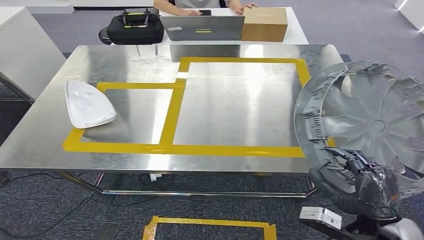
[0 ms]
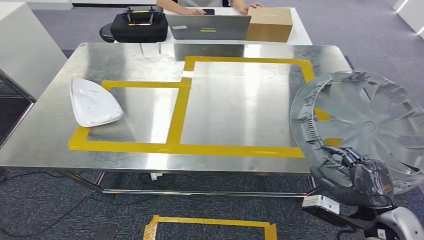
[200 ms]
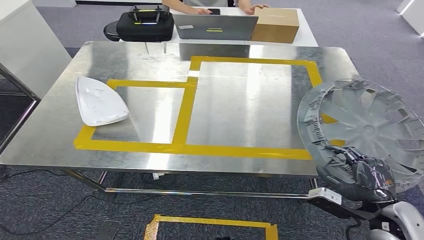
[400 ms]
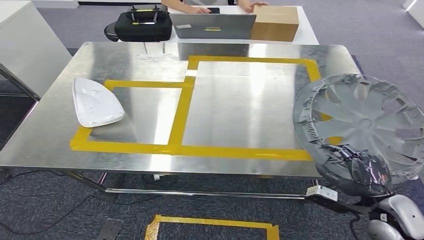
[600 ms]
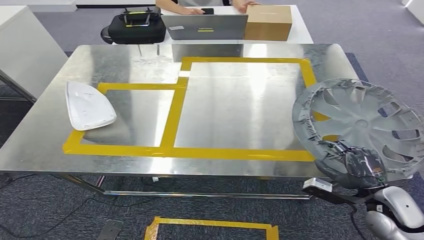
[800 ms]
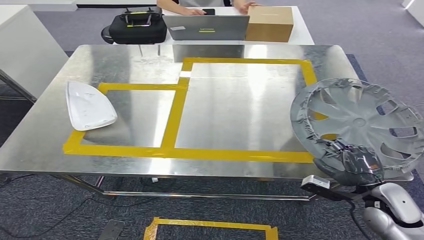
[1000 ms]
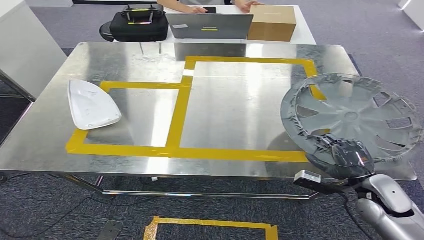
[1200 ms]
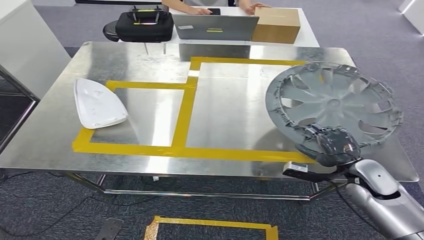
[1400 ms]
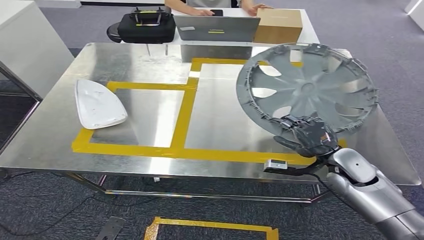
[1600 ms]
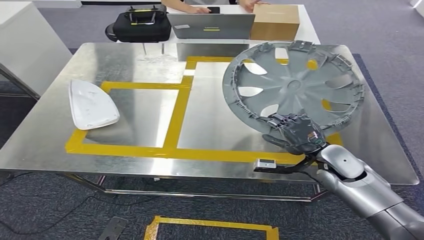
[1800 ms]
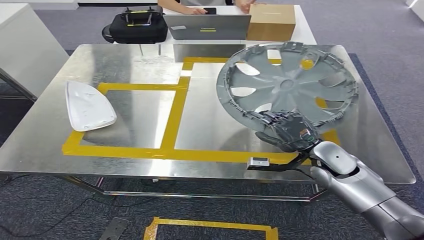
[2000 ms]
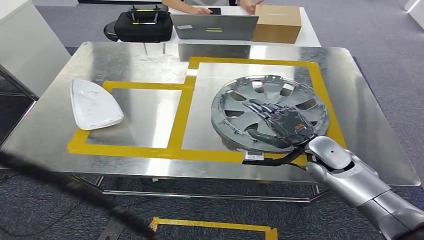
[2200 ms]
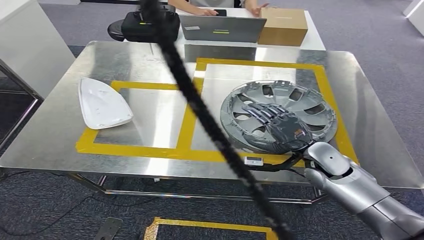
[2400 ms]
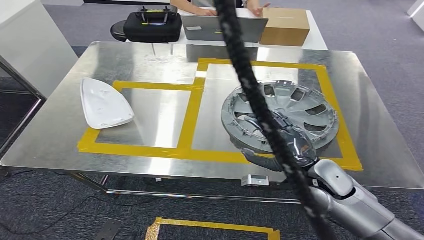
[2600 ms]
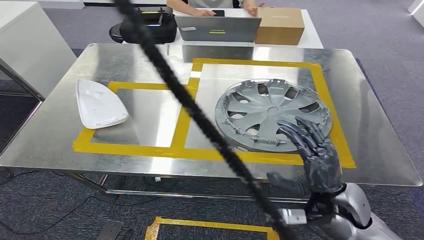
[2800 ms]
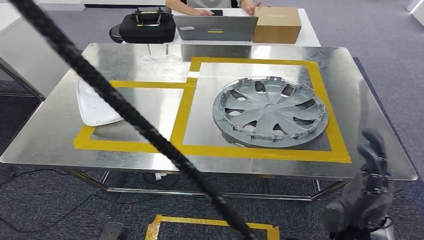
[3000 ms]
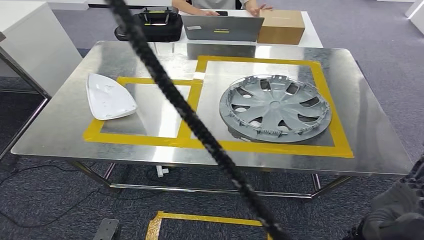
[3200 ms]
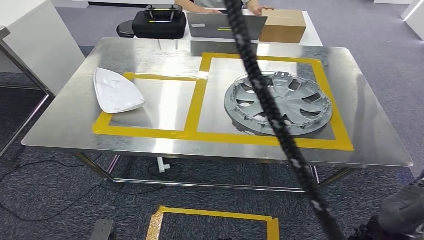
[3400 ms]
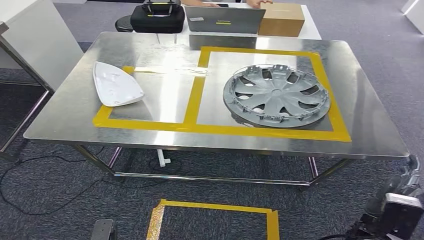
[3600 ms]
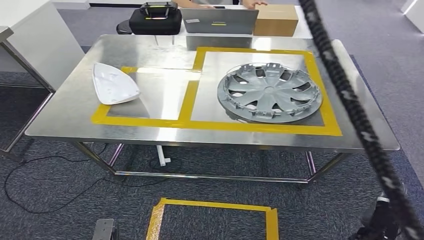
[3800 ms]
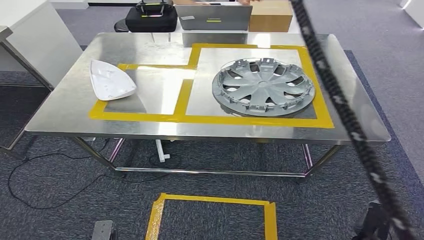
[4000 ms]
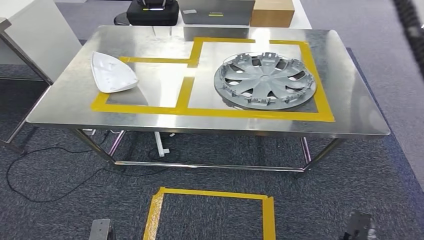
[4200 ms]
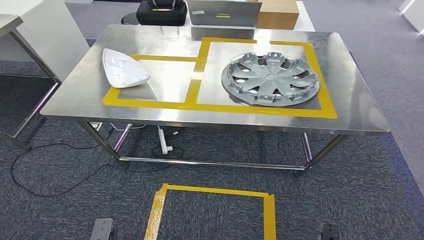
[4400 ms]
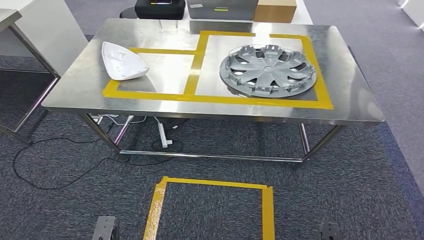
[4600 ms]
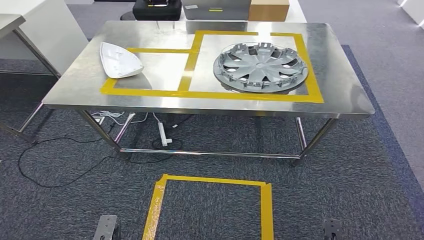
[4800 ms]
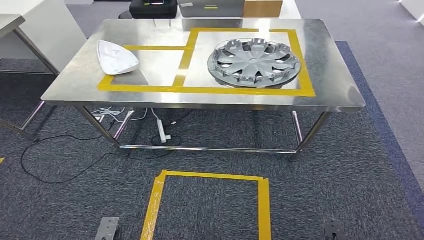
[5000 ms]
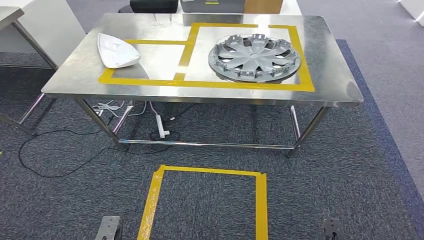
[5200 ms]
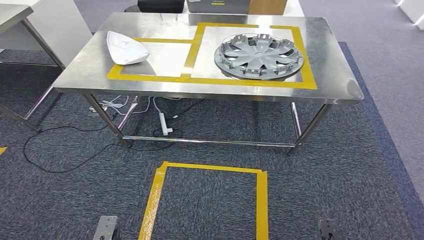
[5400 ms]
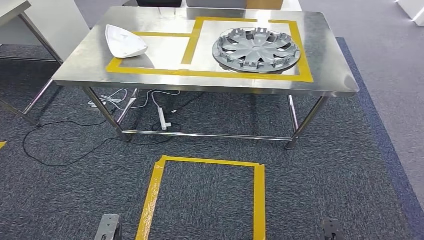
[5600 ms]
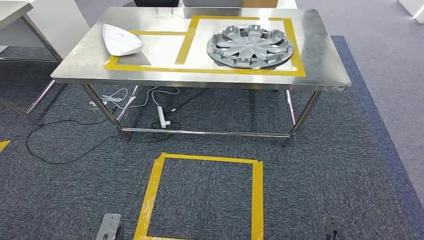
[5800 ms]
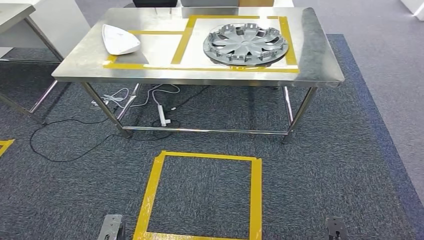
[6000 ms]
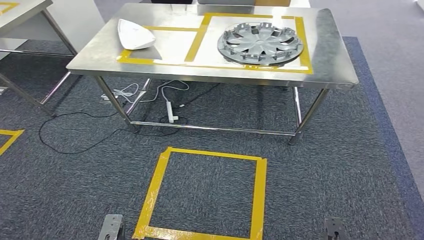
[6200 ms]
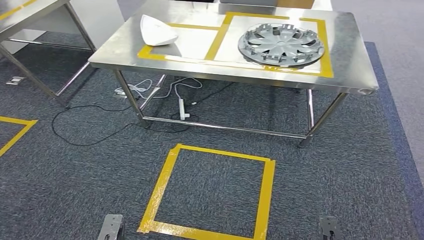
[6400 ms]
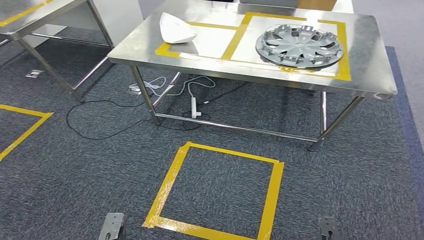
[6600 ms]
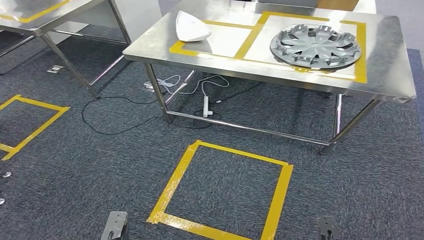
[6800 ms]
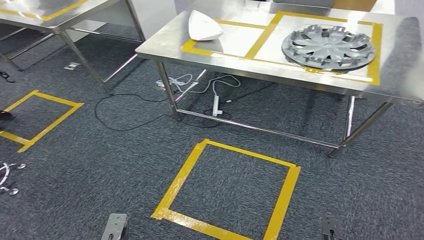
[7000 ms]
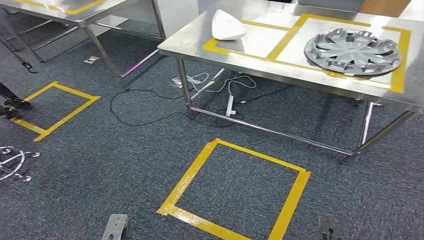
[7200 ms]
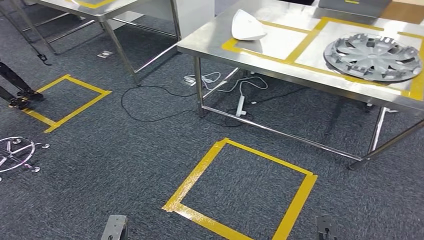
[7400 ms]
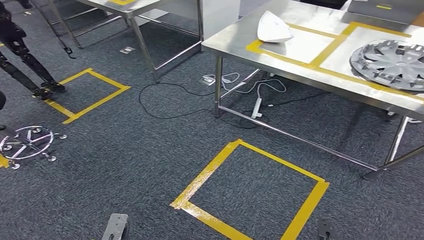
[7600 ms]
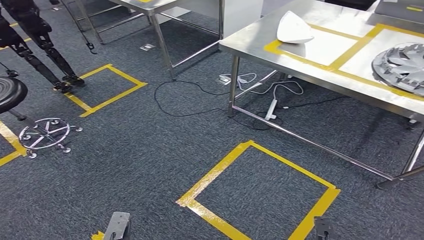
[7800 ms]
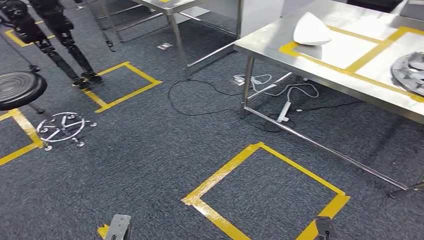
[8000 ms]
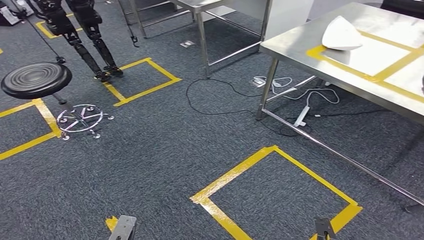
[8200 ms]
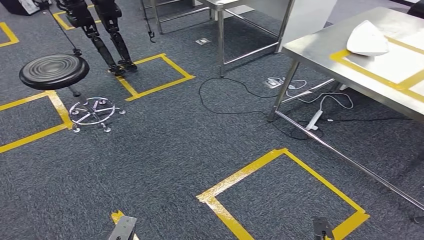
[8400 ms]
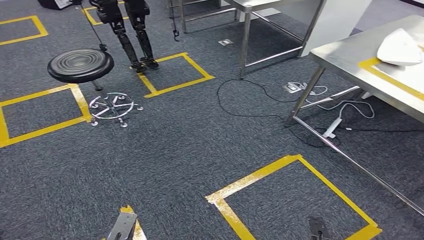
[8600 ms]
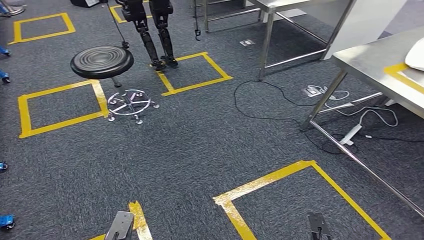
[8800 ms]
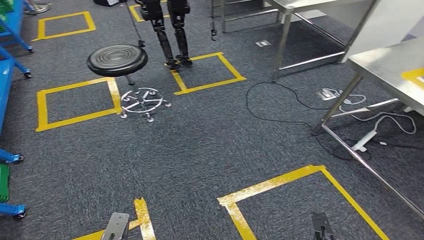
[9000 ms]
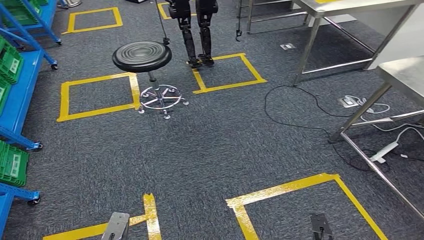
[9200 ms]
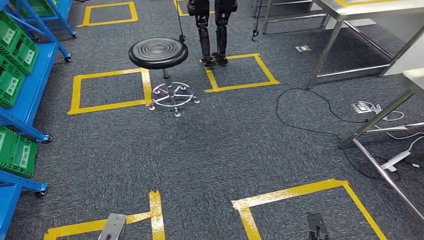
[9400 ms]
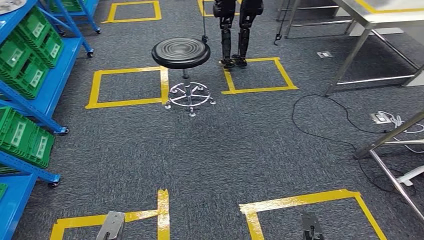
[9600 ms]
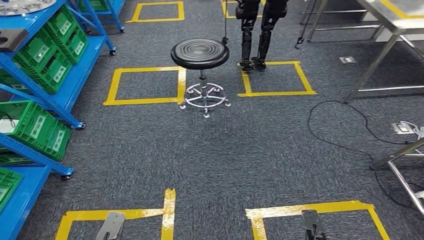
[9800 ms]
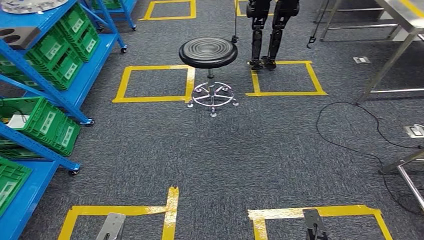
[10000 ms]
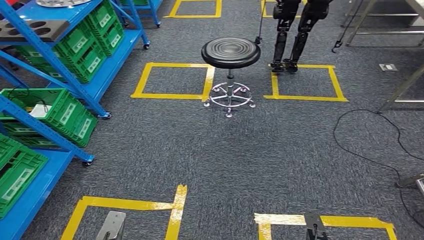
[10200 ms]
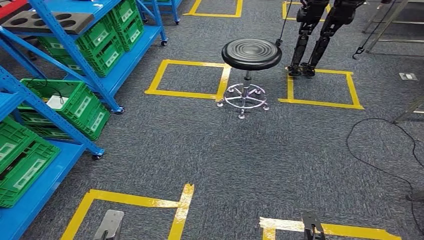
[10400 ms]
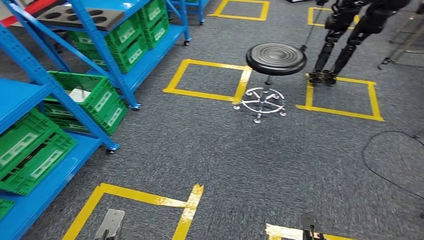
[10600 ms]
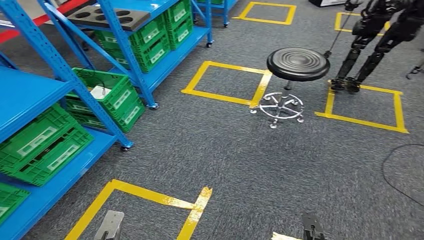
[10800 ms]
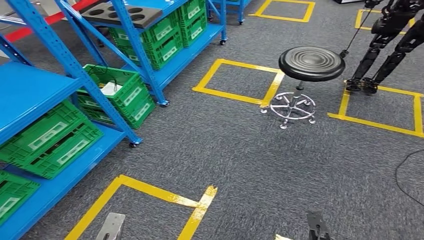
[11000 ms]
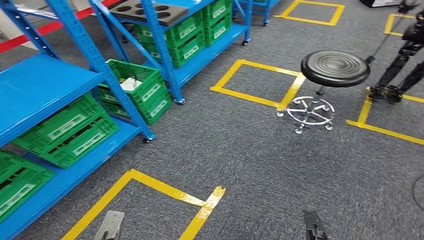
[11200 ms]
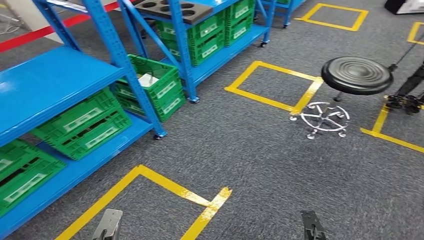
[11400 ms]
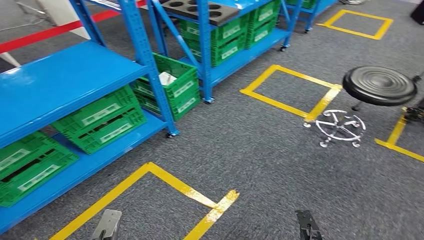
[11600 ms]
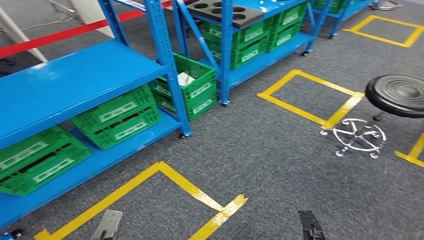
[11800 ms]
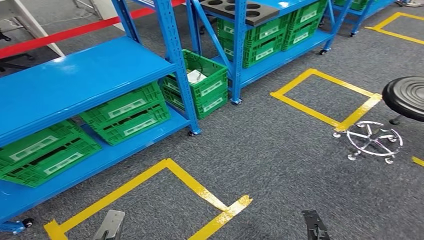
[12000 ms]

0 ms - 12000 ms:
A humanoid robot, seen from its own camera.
Step, 0 ms - 3200 ms: Insert the small parts into the corresponding slots on the workbench.

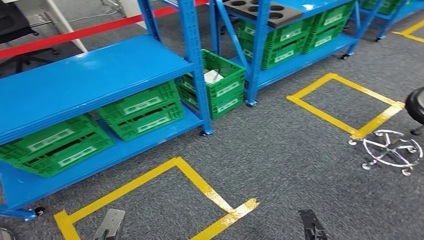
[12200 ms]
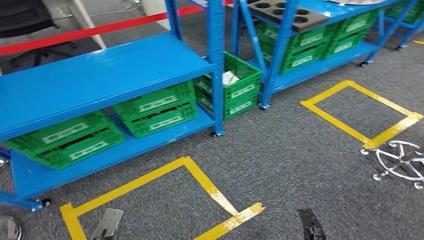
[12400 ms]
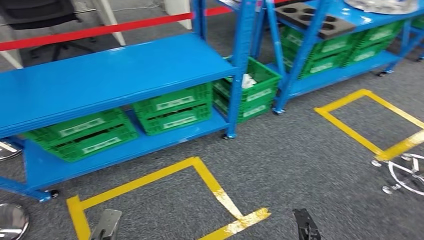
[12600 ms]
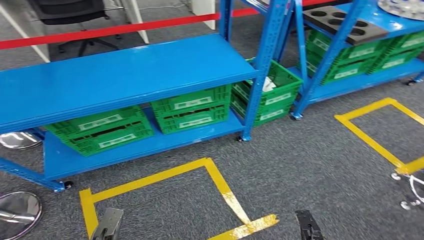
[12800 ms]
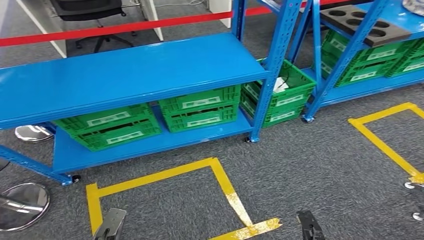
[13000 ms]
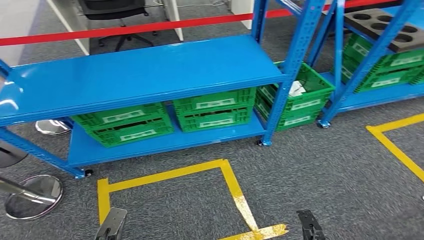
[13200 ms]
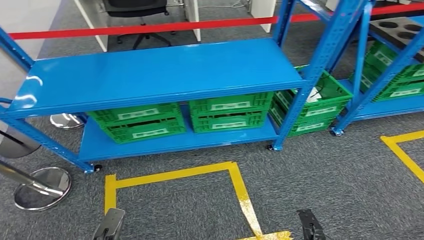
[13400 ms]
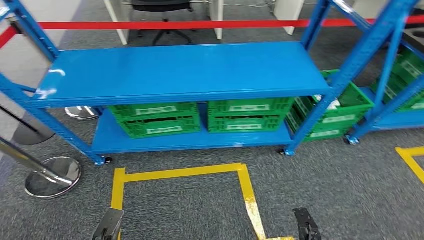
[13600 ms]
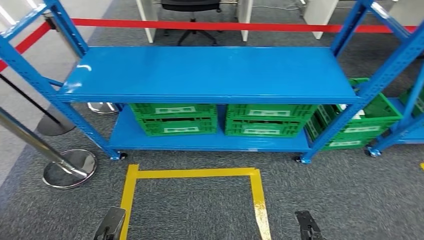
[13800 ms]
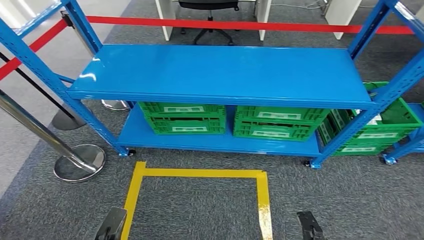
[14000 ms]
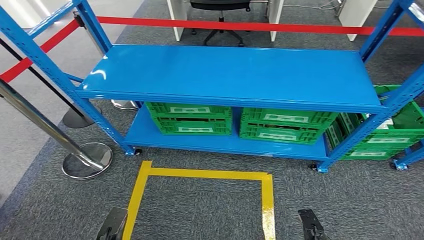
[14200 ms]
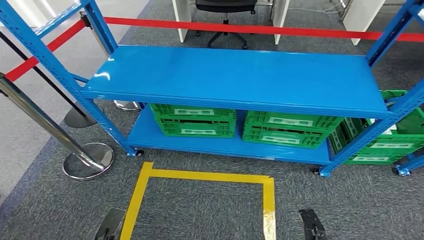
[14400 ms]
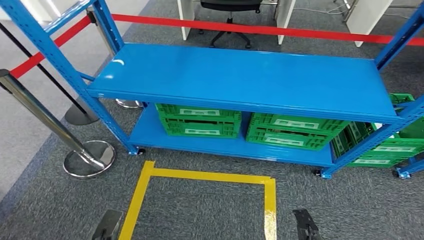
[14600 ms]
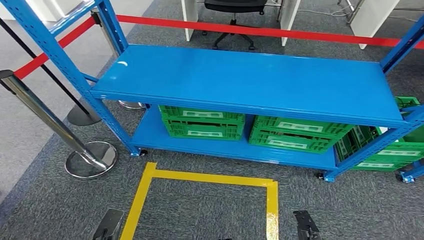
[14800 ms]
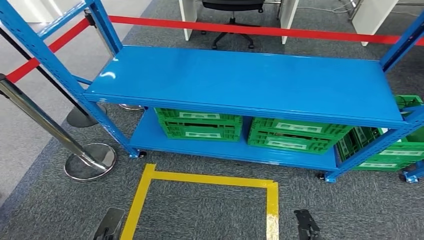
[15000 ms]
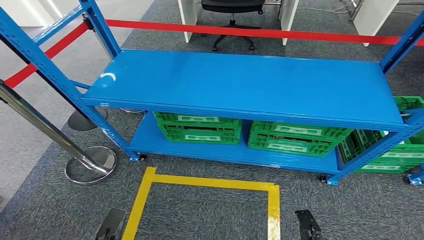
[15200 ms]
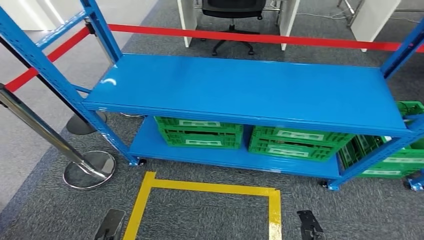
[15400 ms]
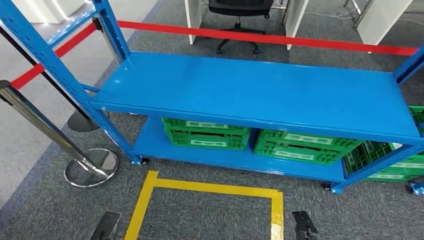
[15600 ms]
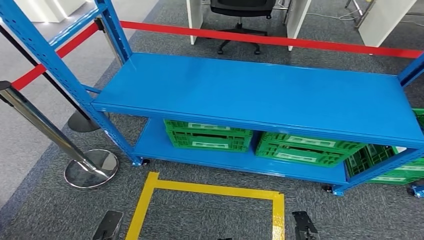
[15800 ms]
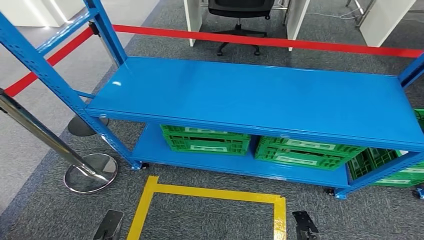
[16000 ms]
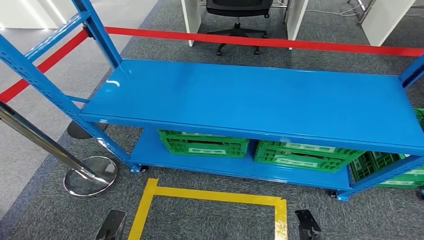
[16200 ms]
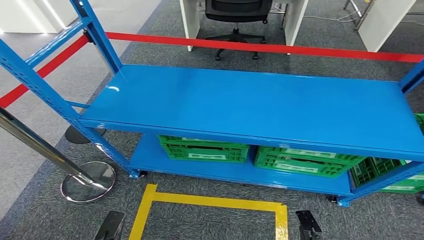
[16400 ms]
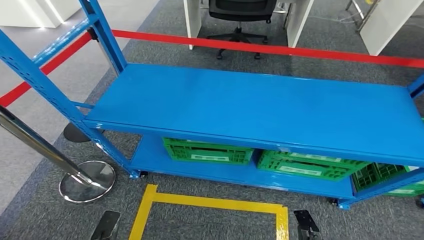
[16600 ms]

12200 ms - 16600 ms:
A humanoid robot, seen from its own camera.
Step, 12200 ms - 16600 ms: Return to the initial position at the workbench.
